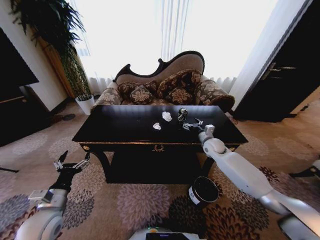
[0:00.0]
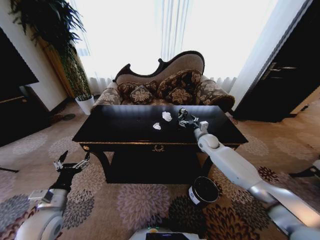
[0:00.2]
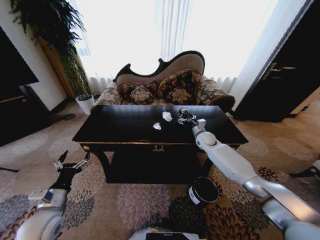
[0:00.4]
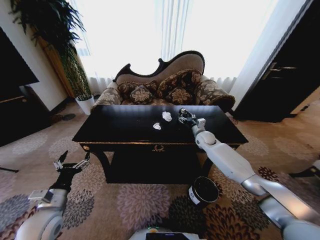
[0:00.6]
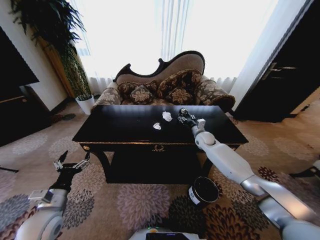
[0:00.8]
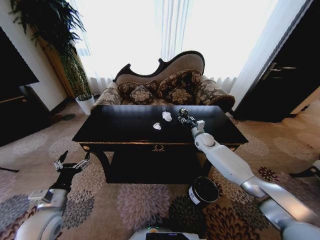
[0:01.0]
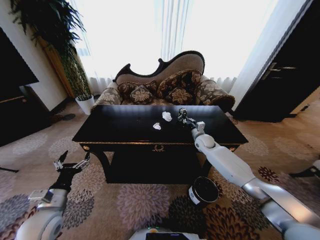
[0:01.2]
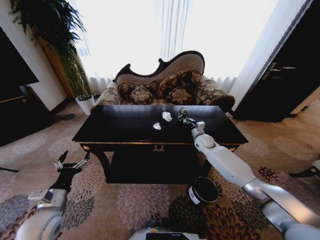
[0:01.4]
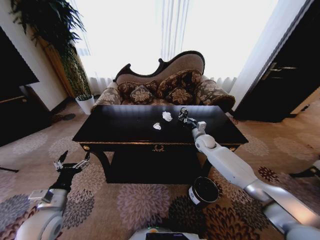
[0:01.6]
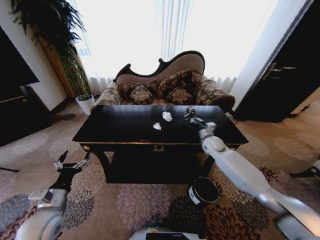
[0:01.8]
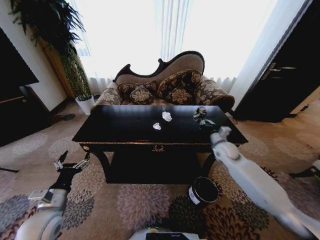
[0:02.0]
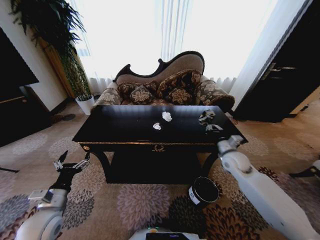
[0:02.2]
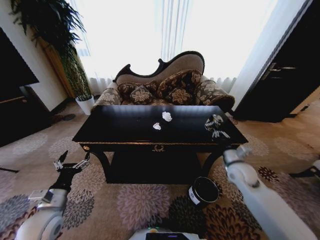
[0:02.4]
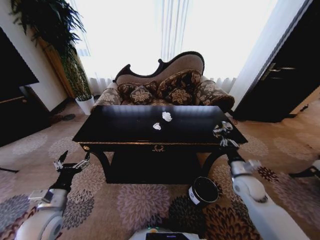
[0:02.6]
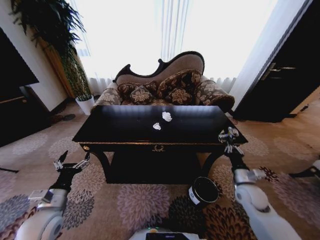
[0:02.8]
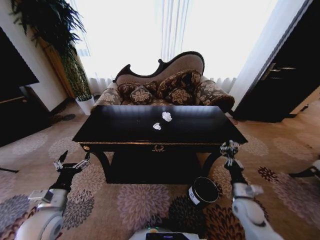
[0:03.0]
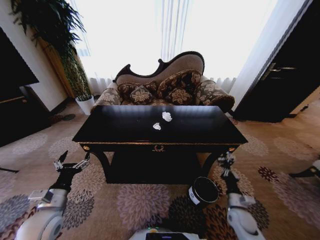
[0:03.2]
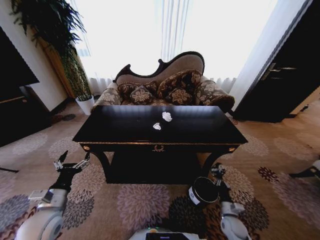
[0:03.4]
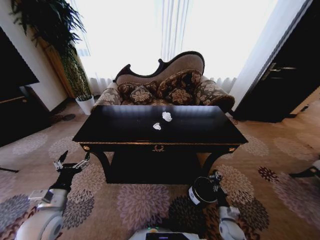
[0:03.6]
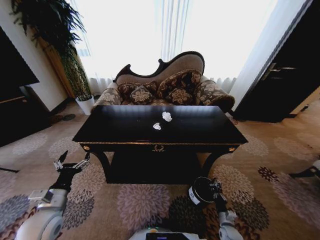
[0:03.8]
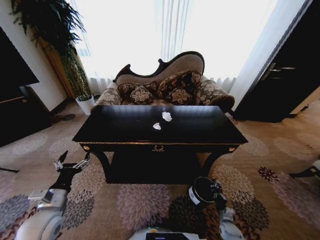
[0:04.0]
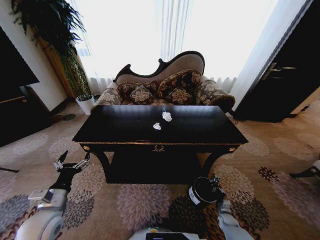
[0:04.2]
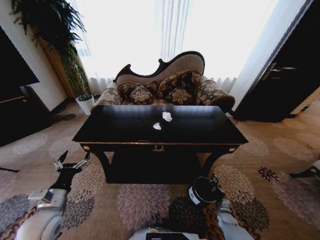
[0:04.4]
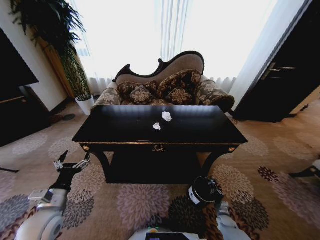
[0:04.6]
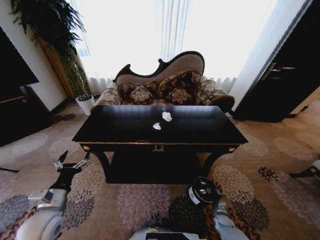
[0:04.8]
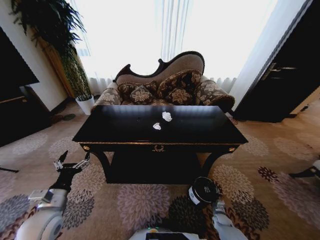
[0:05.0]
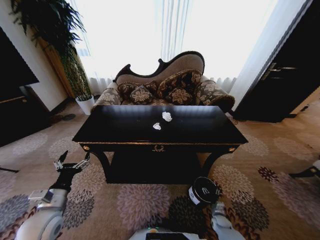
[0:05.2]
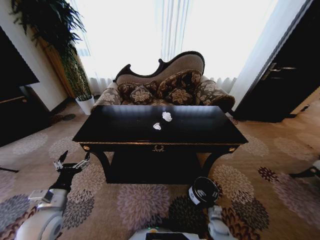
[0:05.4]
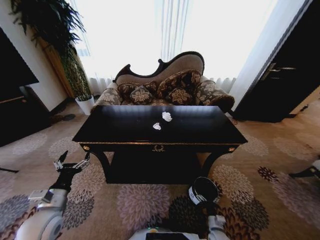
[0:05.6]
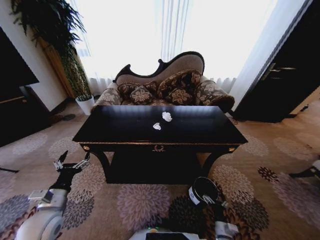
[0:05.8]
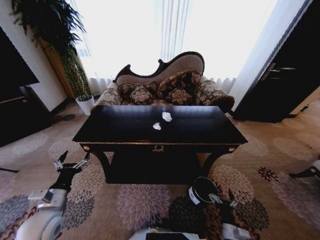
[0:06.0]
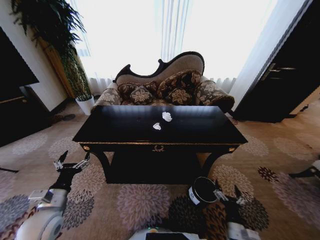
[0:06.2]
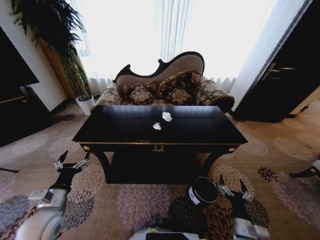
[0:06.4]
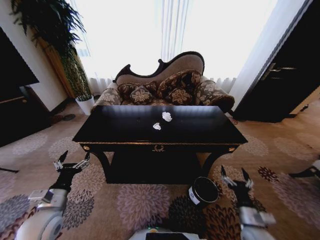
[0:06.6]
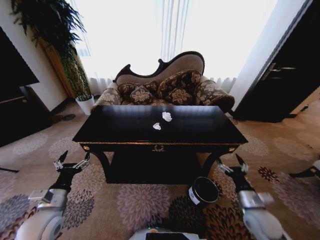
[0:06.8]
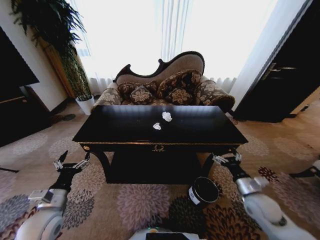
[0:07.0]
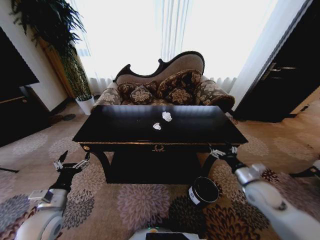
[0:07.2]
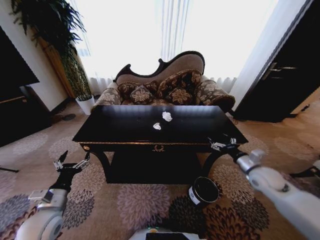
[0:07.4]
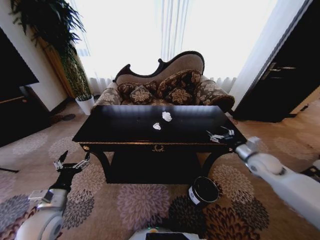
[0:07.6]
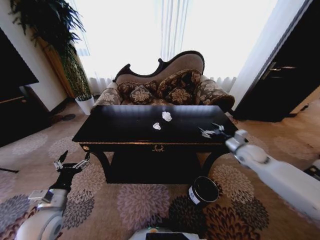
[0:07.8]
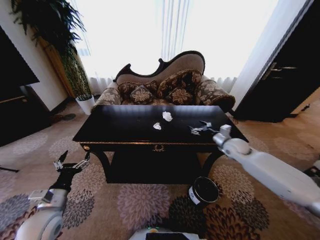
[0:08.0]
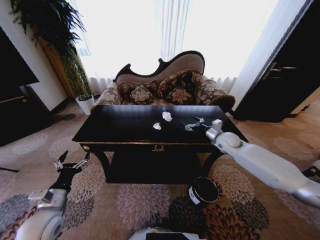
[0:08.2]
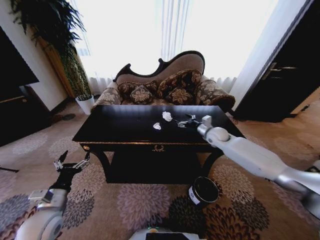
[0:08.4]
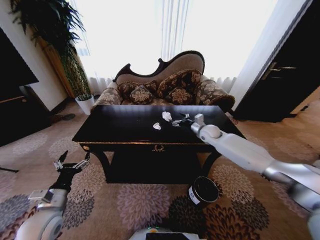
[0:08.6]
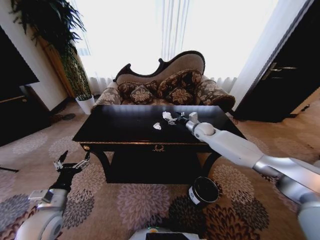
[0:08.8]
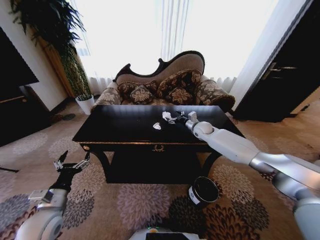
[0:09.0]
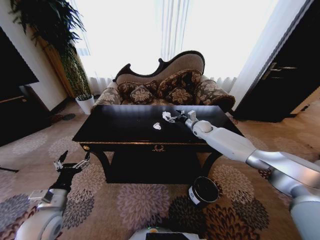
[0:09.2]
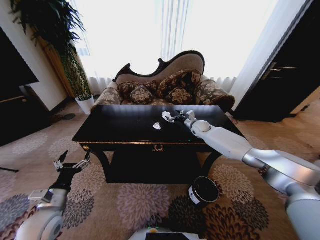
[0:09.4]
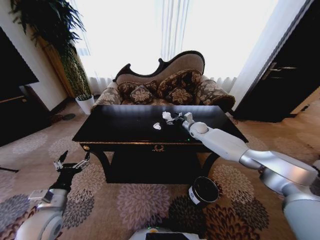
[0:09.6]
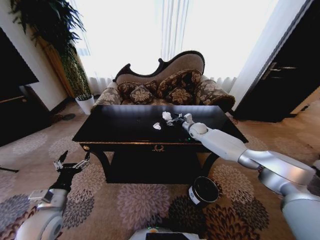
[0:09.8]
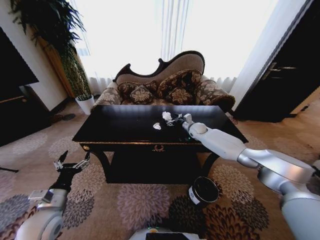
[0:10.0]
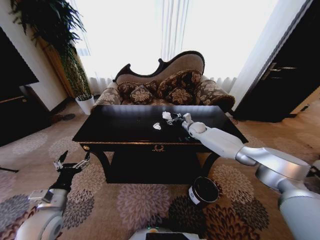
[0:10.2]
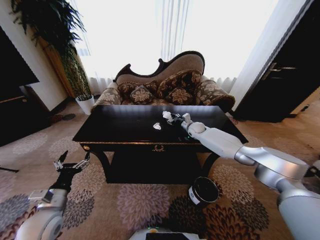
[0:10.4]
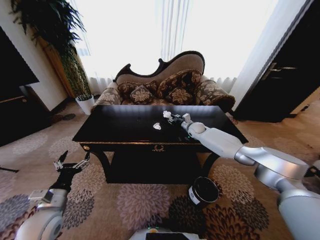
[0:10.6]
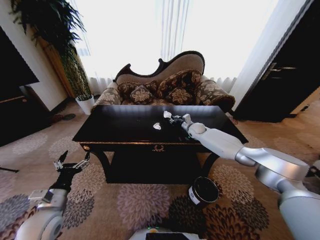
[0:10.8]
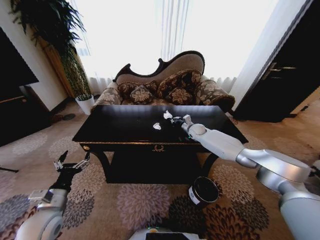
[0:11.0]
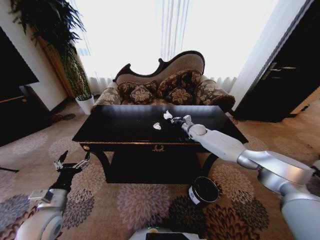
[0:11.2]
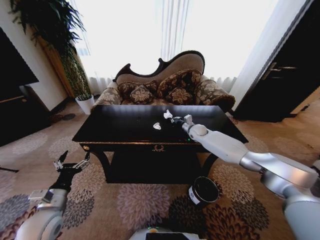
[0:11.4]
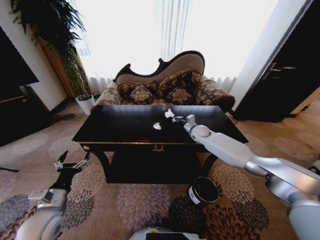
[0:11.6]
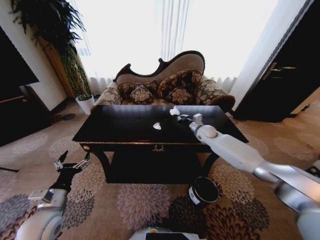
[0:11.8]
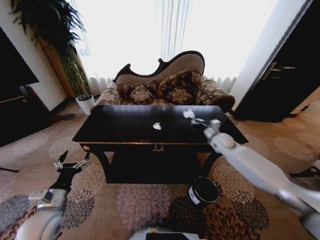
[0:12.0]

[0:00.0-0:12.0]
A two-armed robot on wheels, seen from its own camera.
Task of the whole recording: Move to the front of the table and place the trash on the table into the trash bin.
0:00.0 to 0:01.6: The right gripper closes its fingers.
0:01.6 to 0:03.0: The right gripper moves backward and downward, approximately 30 cm.
0:03.0 to 0:04.4: The right gripper is displaced downward by roughly 25 cm.
0:04.4 to 0:06.0: The right gripper is displaced upward, backward and to the left by about 20 cm, and opens its fingers.
0:06.0 to 0:07.6: The right gripper goes about 40 cm upward, forward and to the right.
0:07.6 to 0:09.0: The right gripper is displaced forward and to the left by about 30 cm.
0:09.0 to 0:10.4: The right gripper ends up approximately 5 cm from where it was.
0:10.4 to 0:12.0: The right gripper moves backward and to the right, some 15 cm, and closes its fingers.

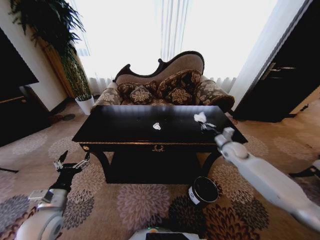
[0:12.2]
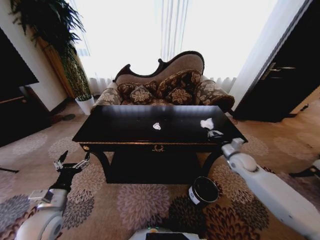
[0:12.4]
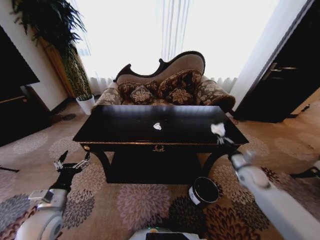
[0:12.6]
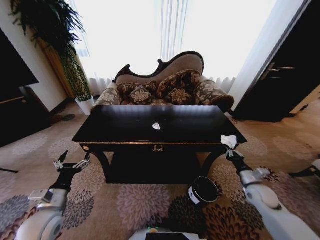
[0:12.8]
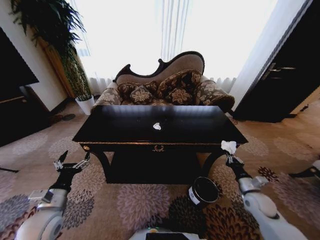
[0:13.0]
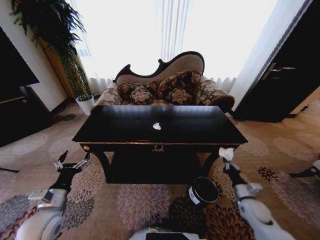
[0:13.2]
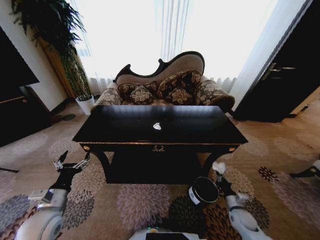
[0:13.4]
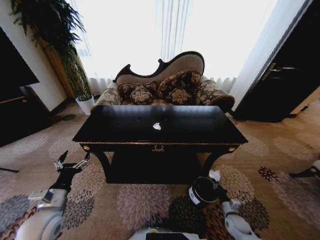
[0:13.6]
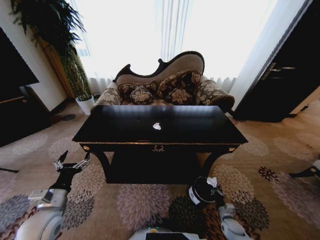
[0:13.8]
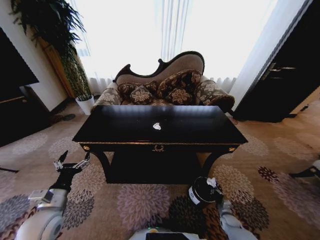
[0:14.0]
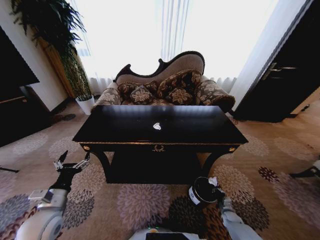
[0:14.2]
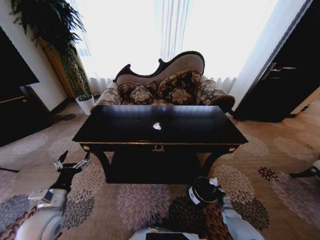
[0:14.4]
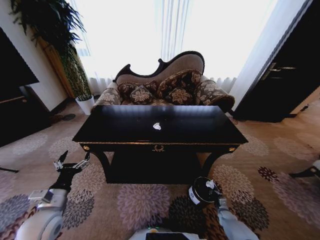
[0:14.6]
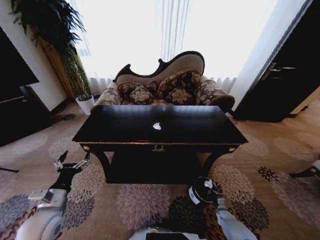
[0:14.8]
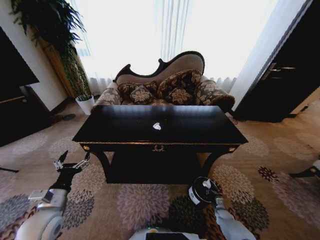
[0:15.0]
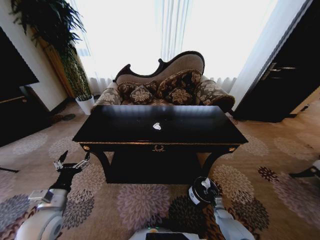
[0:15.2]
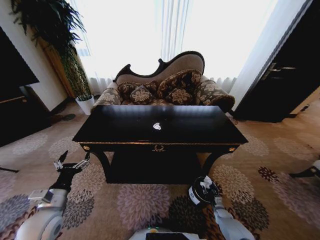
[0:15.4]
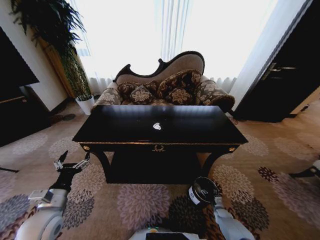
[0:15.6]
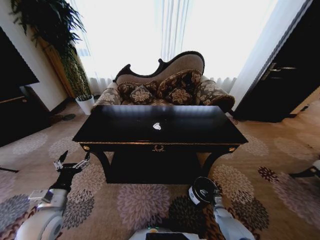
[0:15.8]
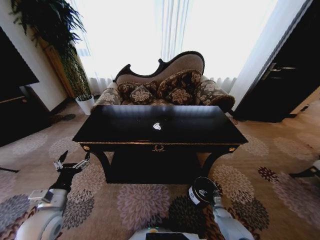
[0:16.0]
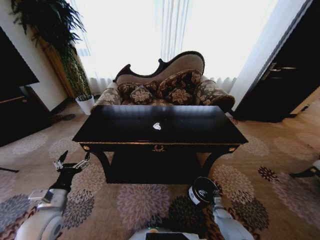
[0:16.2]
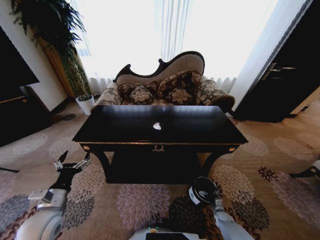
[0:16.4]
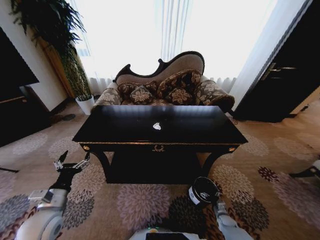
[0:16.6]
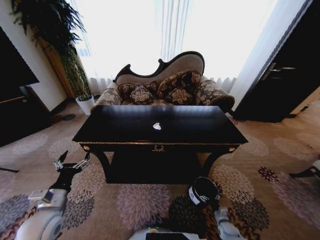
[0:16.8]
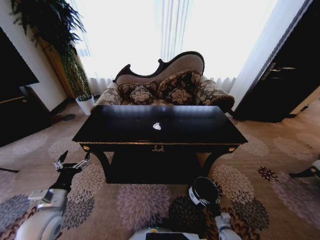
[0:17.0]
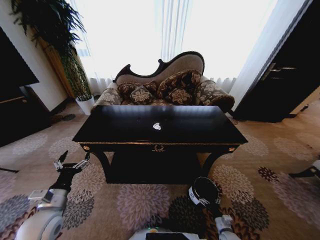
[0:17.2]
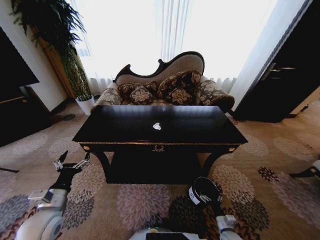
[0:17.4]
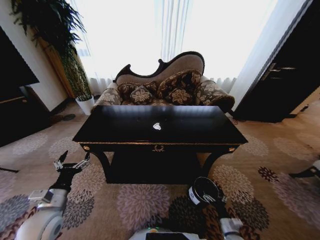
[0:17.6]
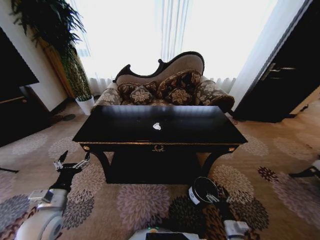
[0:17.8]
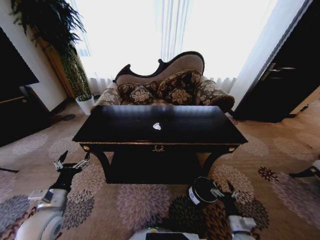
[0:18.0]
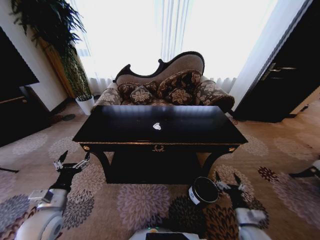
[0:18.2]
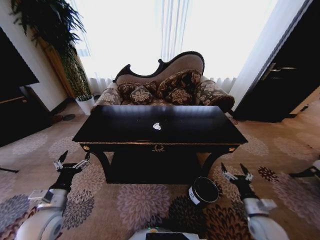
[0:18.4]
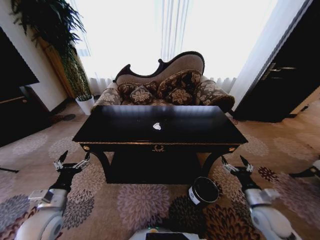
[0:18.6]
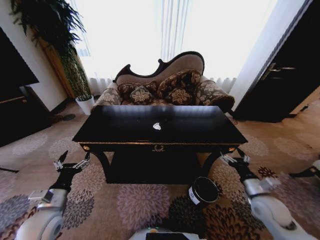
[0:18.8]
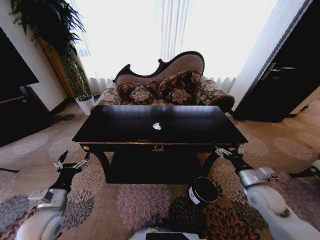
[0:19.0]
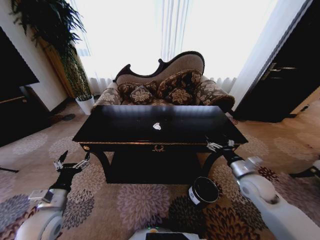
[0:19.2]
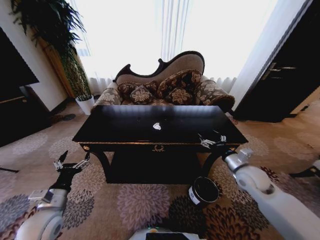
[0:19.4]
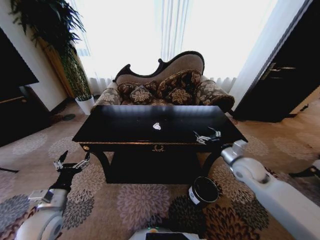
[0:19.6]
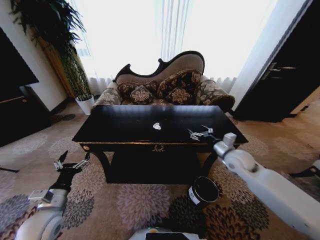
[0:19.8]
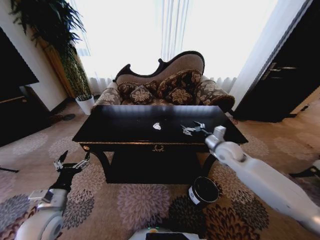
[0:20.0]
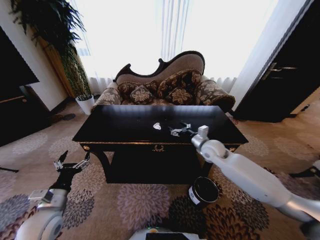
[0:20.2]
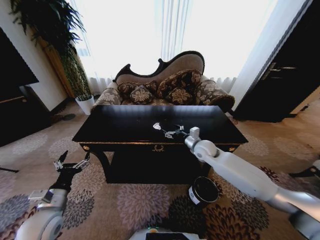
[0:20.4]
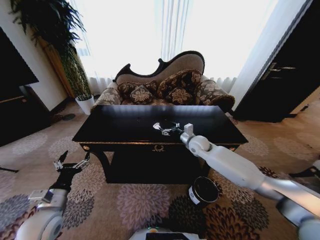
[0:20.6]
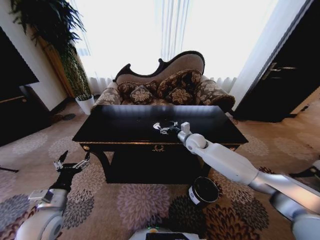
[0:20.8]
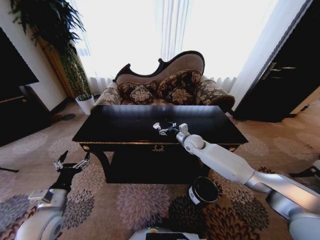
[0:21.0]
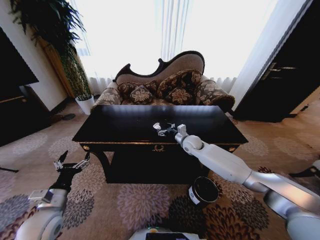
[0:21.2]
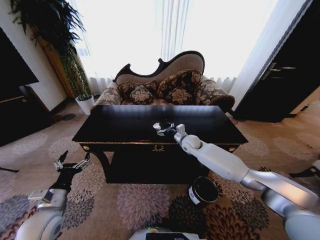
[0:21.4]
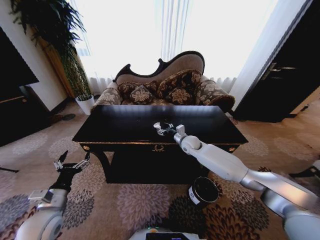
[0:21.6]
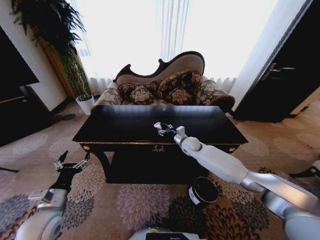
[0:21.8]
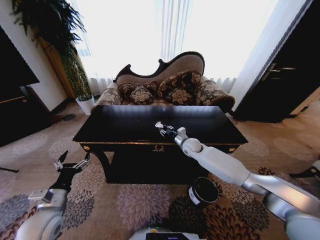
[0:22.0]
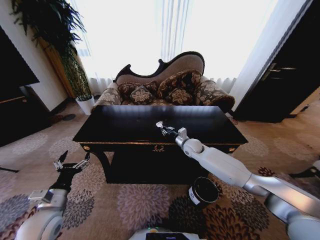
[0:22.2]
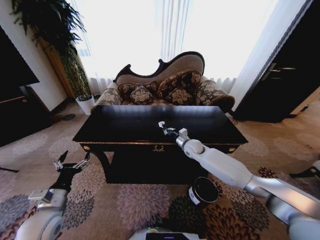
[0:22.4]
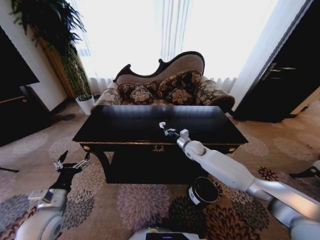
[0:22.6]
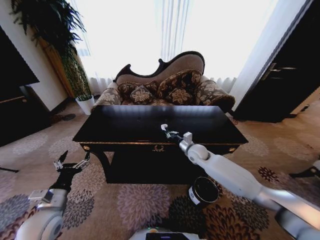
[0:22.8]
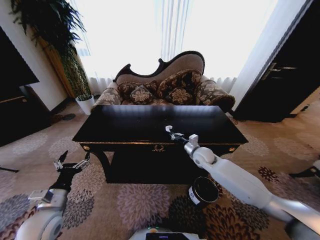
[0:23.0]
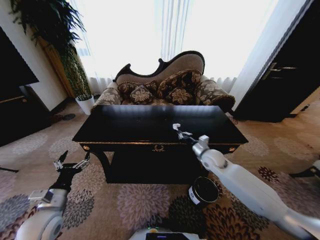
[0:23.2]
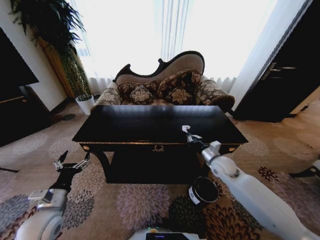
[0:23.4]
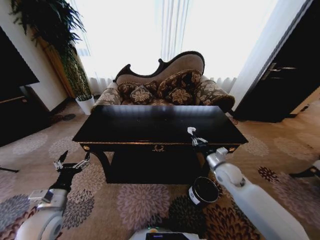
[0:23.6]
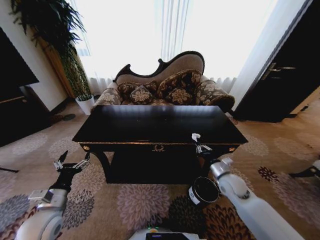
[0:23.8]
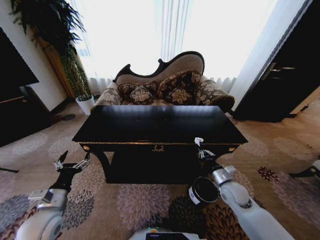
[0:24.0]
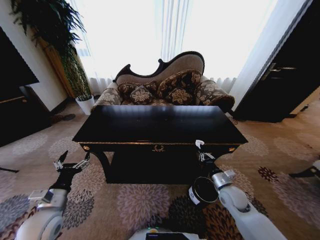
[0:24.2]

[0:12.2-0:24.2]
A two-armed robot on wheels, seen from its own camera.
Task of the whole recording: Move to the front of the table and place the trash on the table into the trash bin.
0:12.2 to 0:13.8: The right gripper is displaced downward and backward by some 40 cm.
0:13.8 to 0:15.2: The right gripper goes roughly 10 cm downward and forward.
0:15.2 to 0:16.6: The right gripper opens its fingers.
0:16.6 to 0:18.2: The right gripper moves upward, about 20 cm.
0:18.2 to 0:19.8: The right gripper goes about 30 cm forward and upward.
0:19.8 to 0:21.2: The right gripper travels to the left and forward by approximately 20 cm.
0:21.2 to 0:22.6: The right gripper closes.
0:22.6 to 0:24.2: The right gripper shifts roughly 25 cm backward and to the right.
